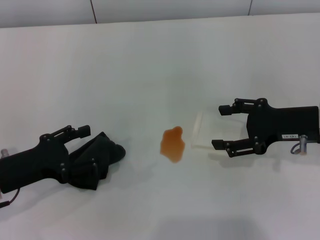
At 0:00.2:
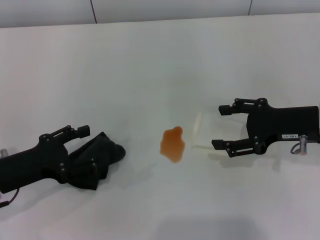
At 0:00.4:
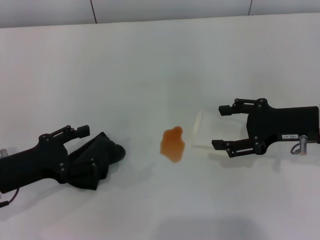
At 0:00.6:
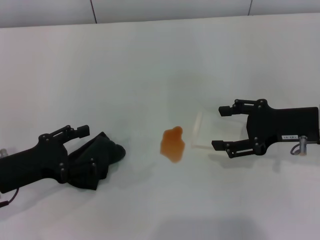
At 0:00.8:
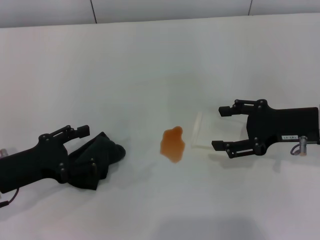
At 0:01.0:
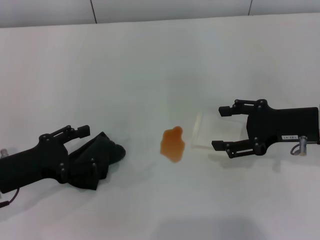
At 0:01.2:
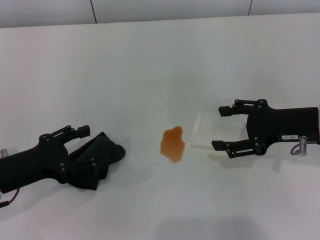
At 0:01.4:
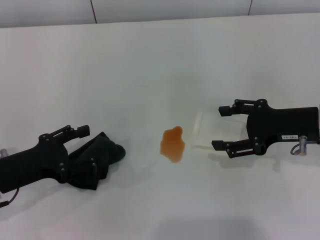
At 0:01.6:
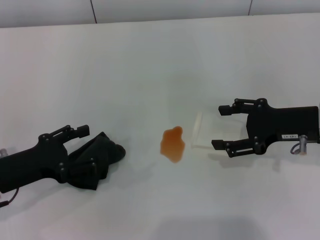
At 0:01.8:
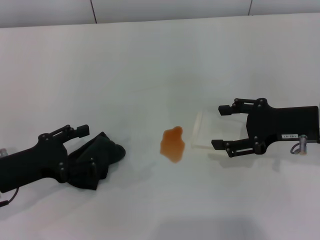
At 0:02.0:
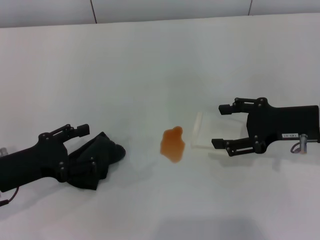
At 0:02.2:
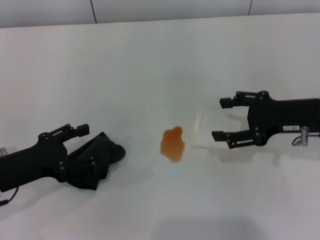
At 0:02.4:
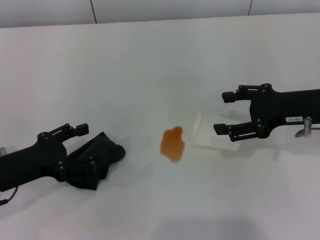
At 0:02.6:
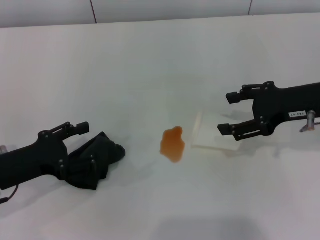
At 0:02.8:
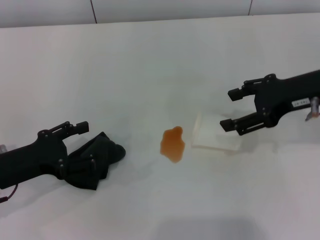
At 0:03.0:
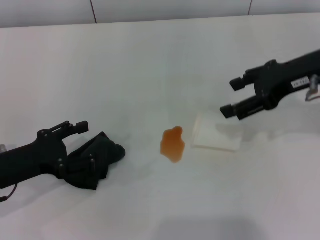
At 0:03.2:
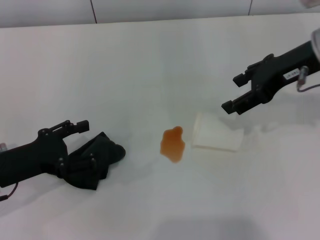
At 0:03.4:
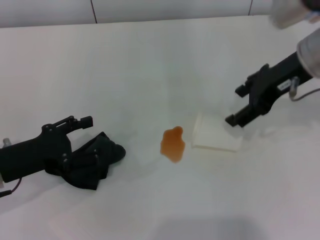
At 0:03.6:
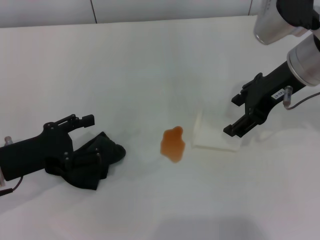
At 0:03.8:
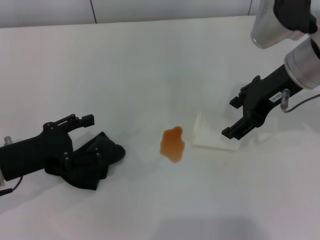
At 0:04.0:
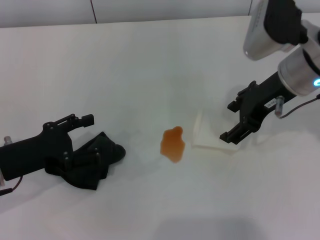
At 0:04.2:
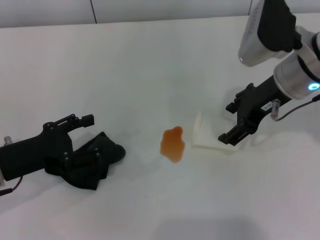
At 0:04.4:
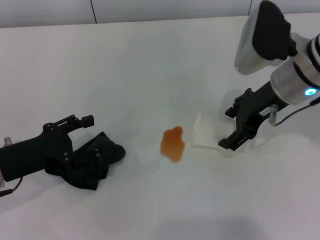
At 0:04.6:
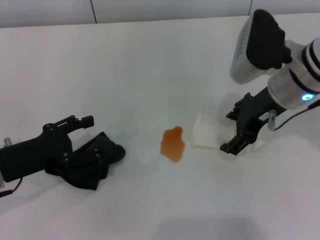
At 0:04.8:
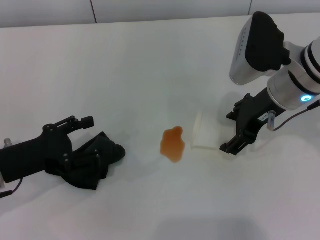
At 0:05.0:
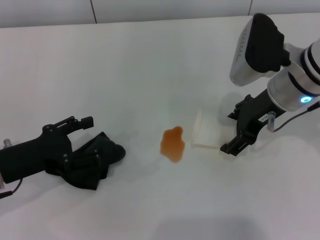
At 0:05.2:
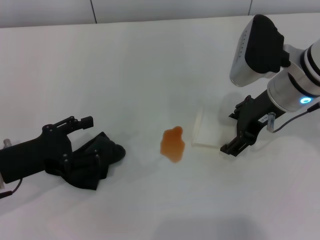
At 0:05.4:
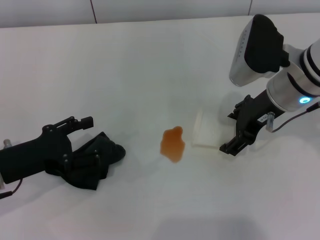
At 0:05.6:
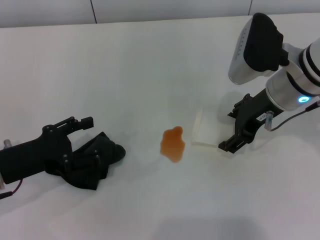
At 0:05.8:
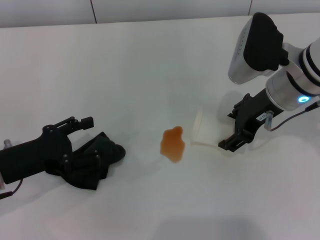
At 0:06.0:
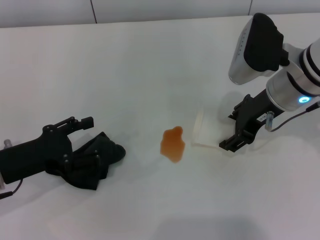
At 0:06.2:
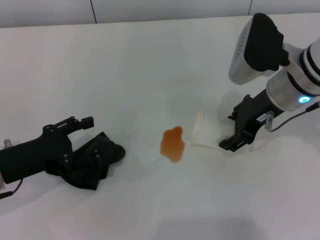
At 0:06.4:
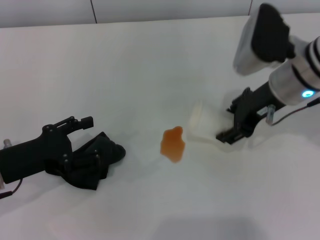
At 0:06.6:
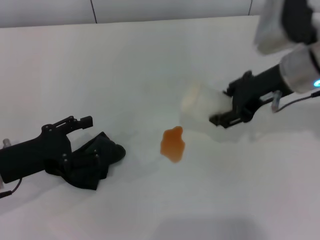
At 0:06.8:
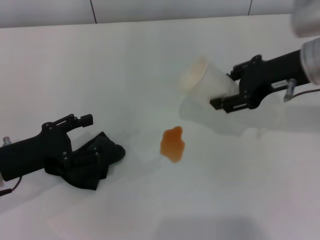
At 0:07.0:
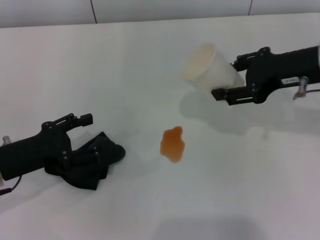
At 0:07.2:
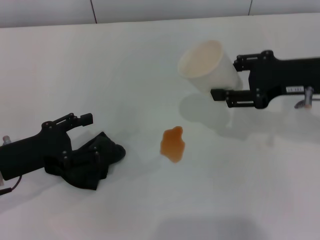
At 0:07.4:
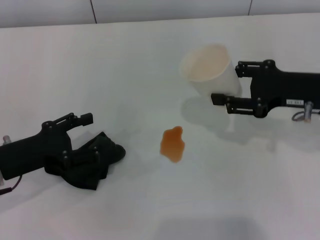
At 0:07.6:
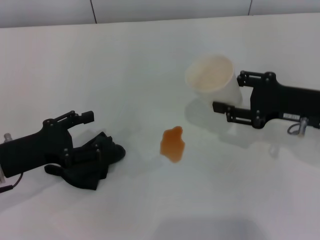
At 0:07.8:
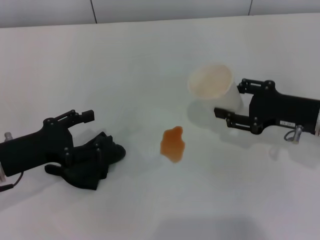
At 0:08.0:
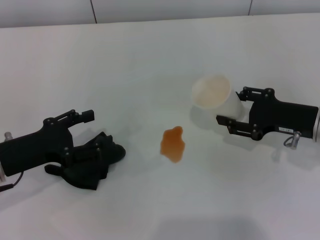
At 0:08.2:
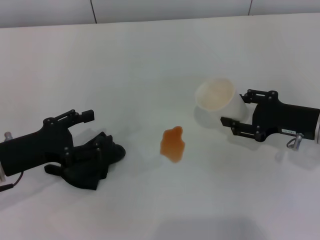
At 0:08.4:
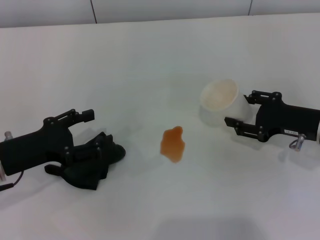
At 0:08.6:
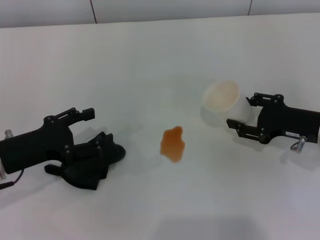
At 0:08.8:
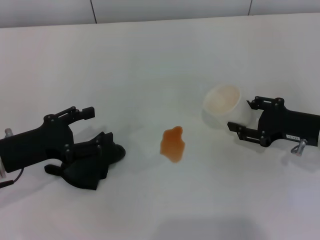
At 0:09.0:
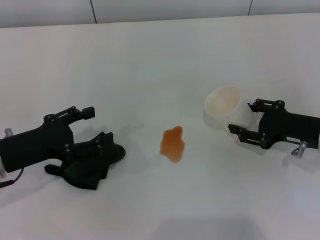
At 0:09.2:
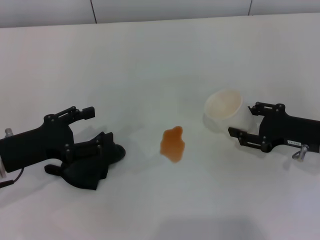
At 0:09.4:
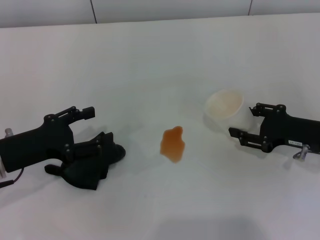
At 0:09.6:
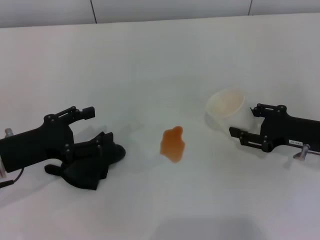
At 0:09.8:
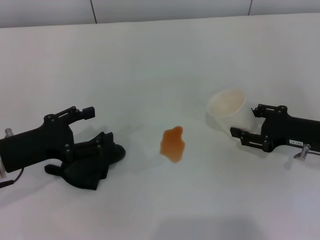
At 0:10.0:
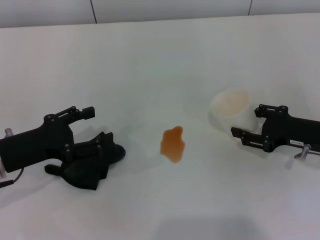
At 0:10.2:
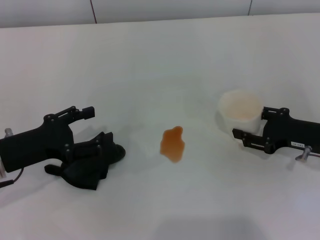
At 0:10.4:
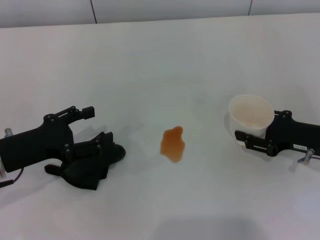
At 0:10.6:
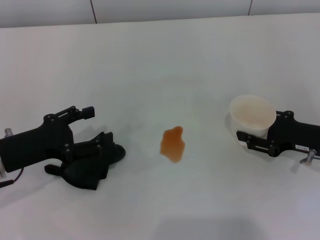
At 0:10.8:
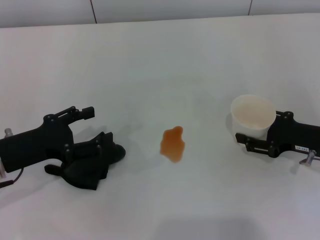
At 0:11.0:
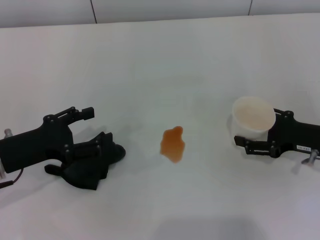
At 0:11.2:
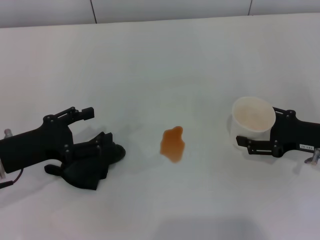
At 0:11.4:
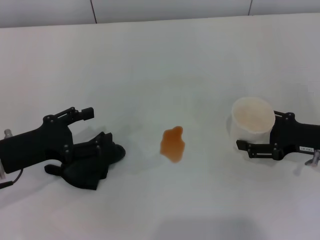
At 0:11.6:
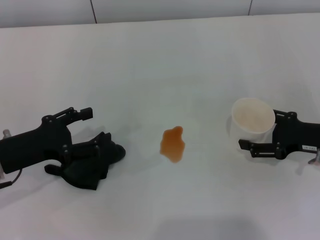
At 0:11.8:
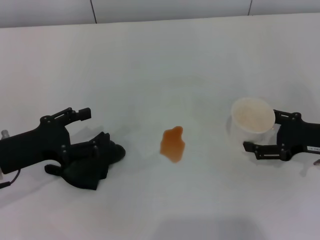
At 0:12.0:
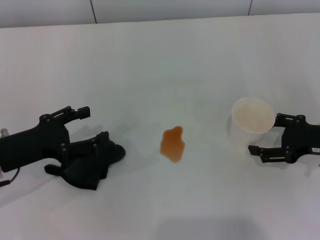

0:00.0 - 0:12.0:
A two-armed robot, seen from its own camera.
Step, 0:00.0 - 0:06.0: Grasp the paper cup with the right gripper.
0:00.0 - 0:01.6: Both grippers stay put.
0:01.6 - 0:03.0: The right gripper shifts roughly 10 cm upward.
0:03.0 - 0:04.4: The right gripper goes approximately 5 cm to the left.
0:04.4 - 0:06.0: The right gripper closes up.
0:06.0 - 0:07.6: The right gripper heads to the right, covering about 10 cm, and closes up.
0:07.6 - 0:09.0: The right gripper travels downward by about 5 cm.
0:09.0 - 0:10.4: The grippers make only small movements.
0:10.4 - 0:12.0: The right gripper opens its fingers.

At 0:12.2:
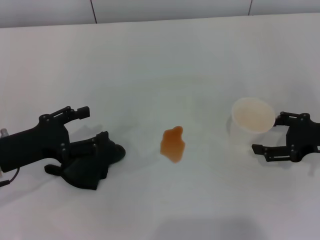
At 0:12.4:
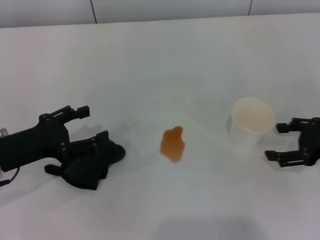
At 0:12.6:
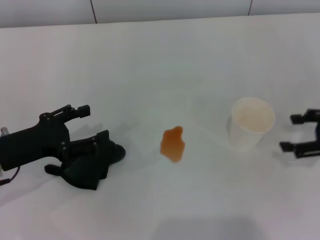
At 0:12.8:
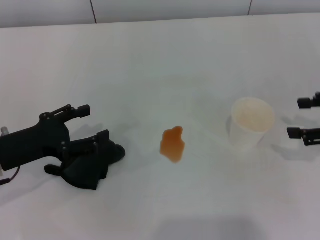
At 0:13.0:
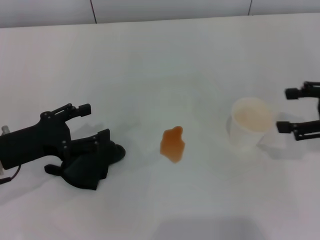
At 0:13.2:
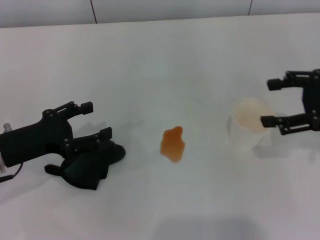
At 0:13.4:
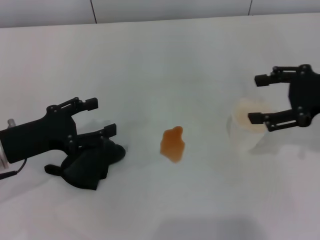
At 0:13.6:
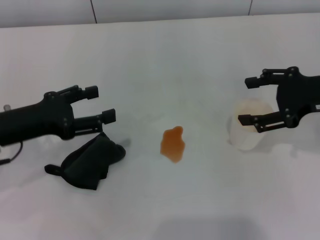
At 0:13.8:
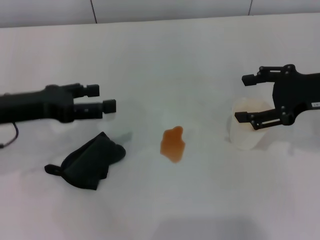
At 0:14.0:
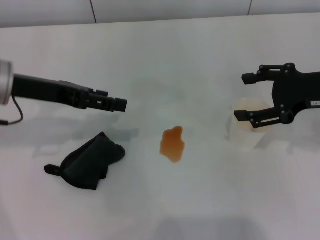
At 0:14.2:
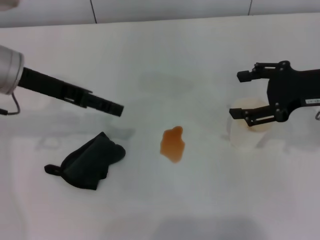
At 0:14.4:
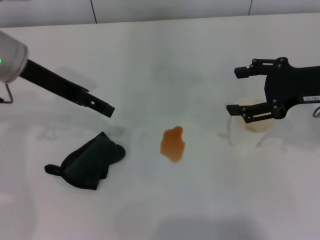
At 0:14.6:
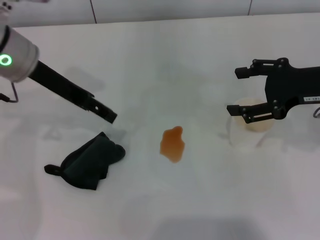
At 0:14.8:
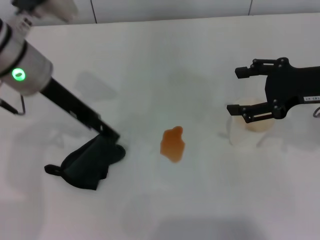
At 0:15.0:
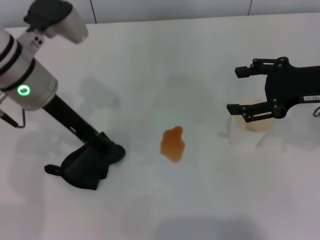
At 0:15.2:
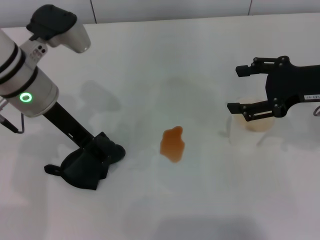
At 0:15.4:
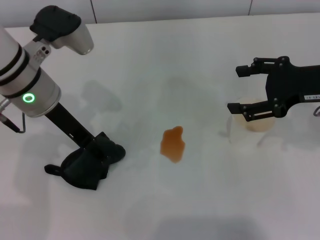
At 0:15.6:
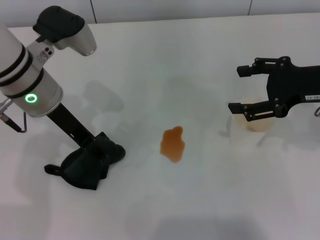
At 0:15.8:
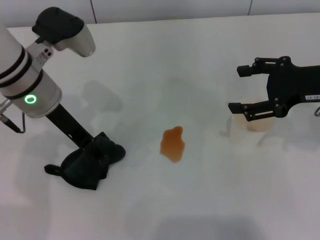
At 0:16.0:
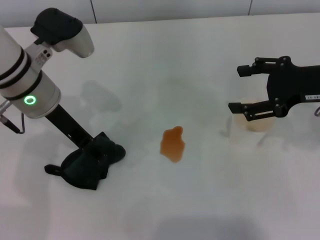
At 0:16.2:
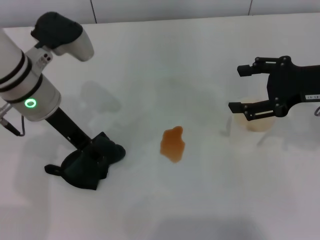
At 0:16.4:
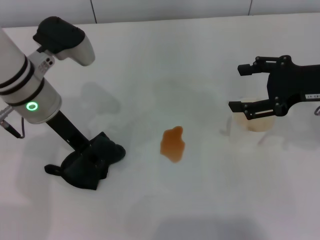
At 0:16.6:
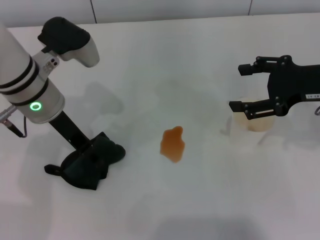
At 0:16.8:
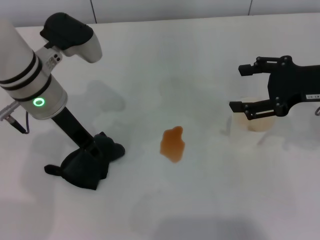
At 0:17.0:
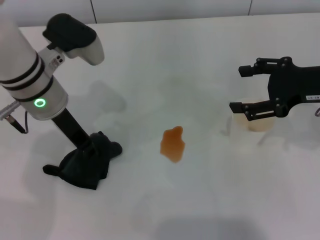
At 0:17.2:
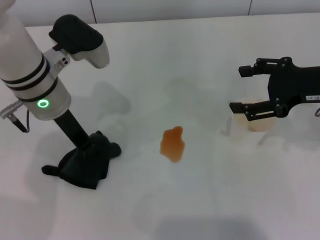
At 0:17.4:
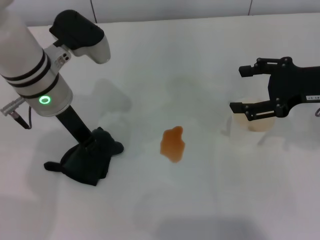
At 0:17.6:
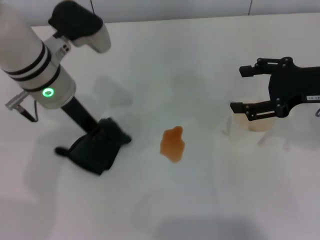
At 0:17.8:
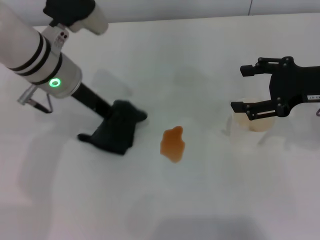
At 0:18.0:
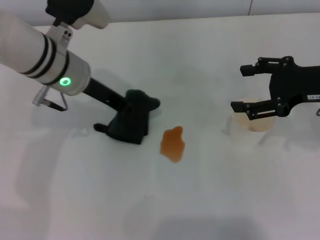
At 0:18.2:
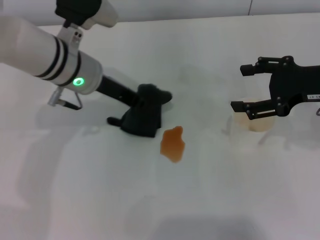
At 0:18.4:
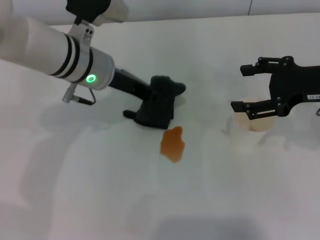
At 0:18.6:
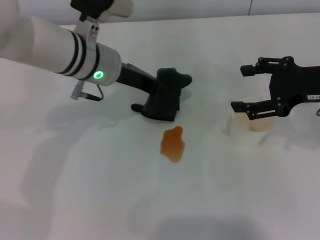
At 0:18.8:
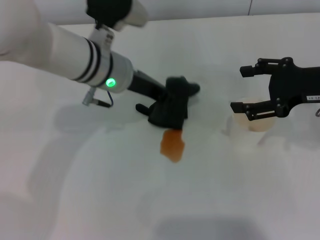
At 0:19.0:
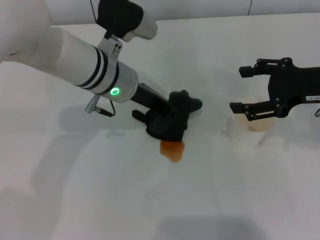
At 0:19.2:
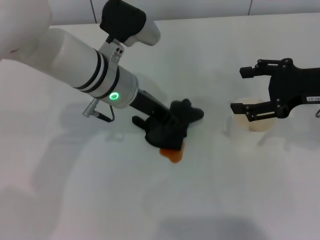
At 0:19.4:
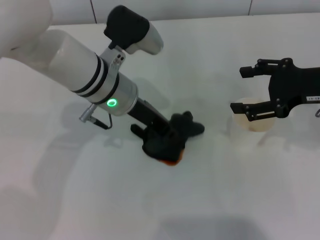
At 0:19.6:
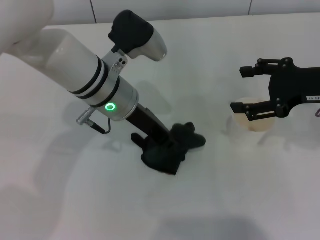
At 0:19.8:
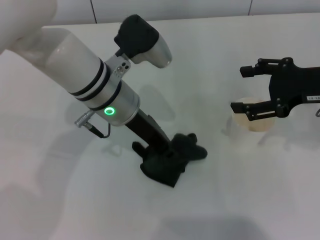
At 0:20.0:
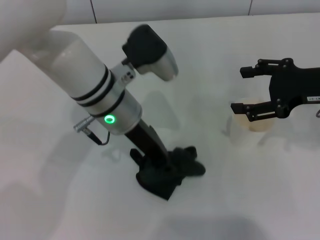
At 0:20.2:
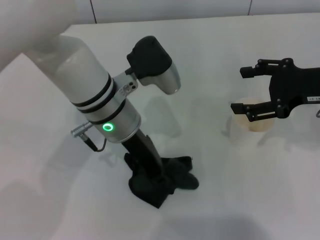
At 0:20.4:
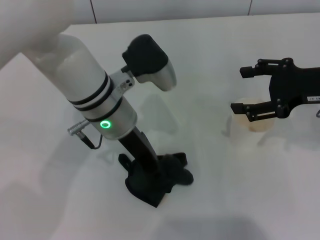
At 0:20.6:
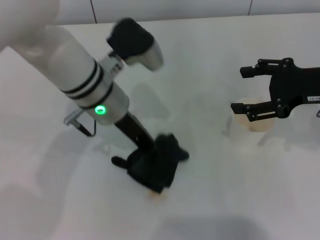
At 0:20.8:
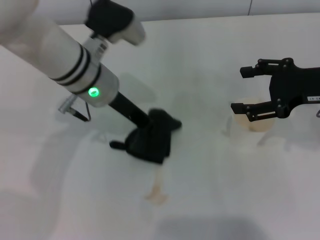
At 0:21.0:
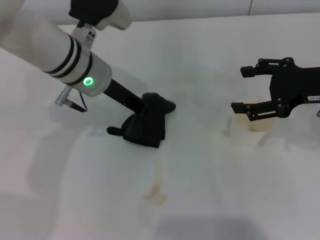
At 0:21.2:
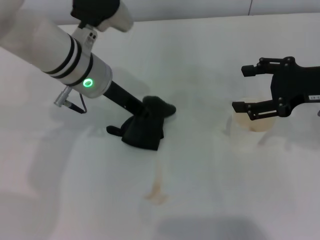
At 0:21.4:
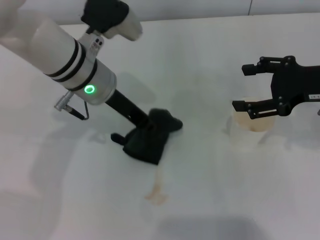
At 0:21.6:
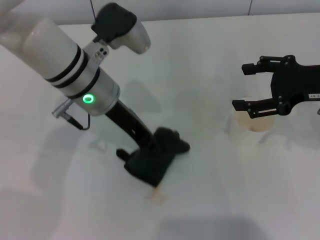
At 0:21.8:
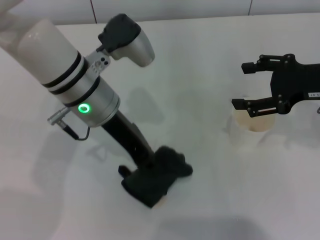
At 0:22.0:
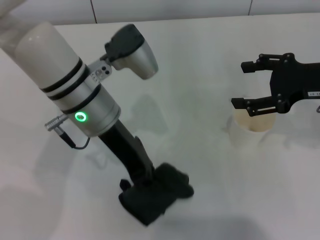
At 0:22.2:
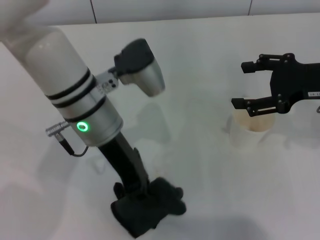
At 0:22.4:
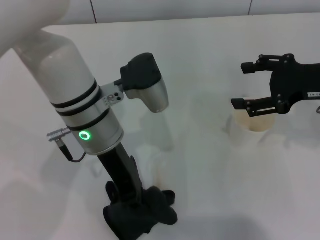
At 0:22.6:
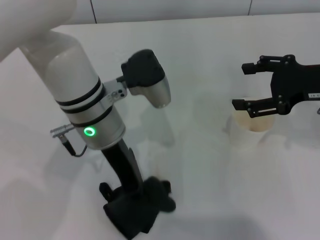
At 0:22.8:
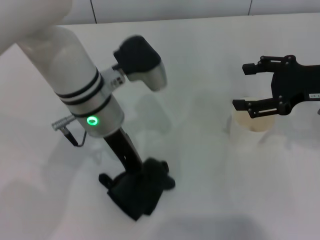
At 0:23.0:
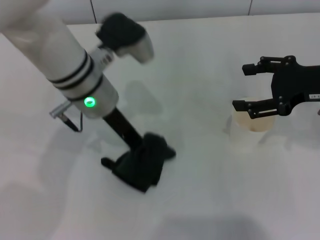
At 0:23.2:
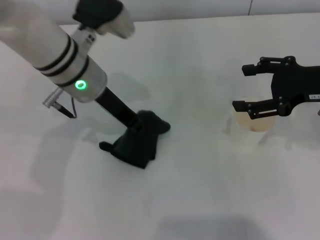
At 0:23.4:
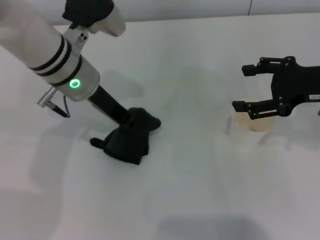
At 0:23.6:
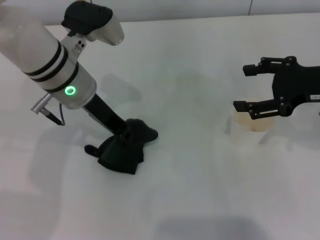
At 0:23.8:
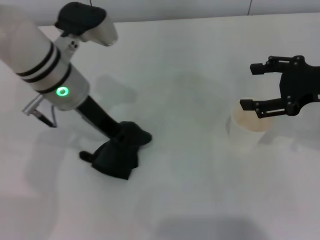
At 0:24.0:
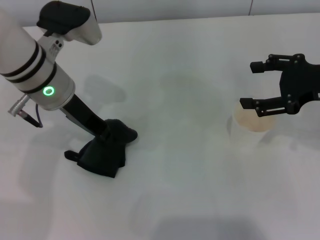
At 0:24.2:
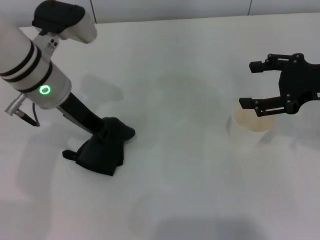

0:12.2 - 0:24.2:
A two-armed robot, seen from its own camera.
Step, 0:12.4 - 0:17.2: Grasp the rag with the left gripper.
Step, 0:17.6 - 0:24.0: Wipe the stains off the table with the left gripper.
0:12.2 - 0:13.8: The two grippers go some 10 cm upward.
0:13.8 - 0:15.2: The left gripper moves to the right and forward, about 10 cm.
0:15.2 - 0:16.6: The left gripper closes its fingers.
0:16.6 - 0:18.2: The left gripper closes its fingers.
0:18.2 - 0:19.8: The left gripper is displaced to the right by roughly 5 cm.
0:21.2 - 0:22.6: The left gripper moves backward, about 5 cm.
0:22.6 - 0:24.2: The left gripper shifts approximately 5 cm to the left.
